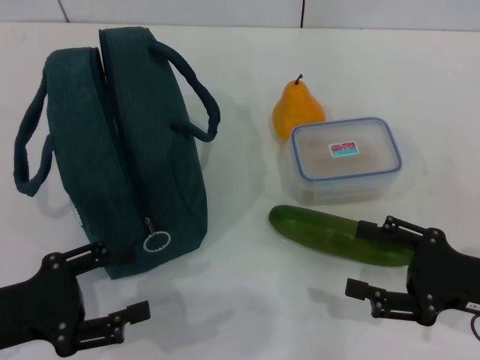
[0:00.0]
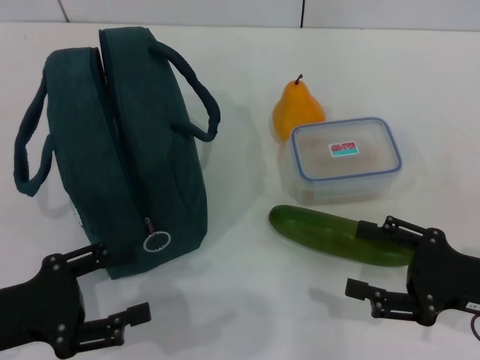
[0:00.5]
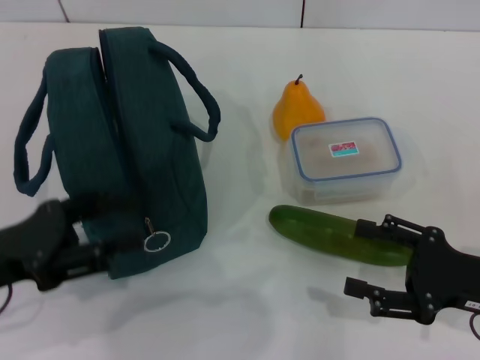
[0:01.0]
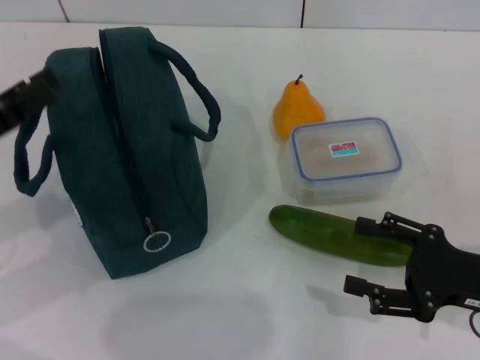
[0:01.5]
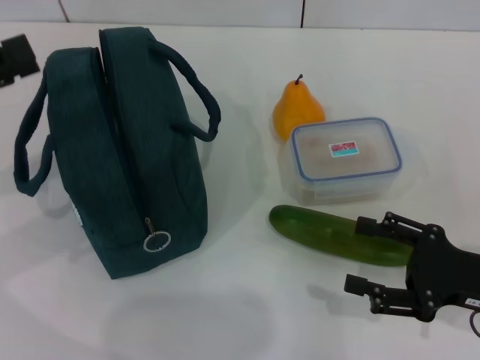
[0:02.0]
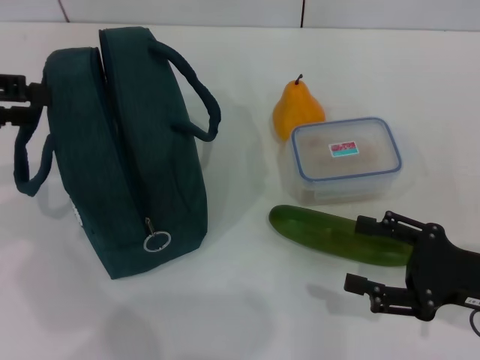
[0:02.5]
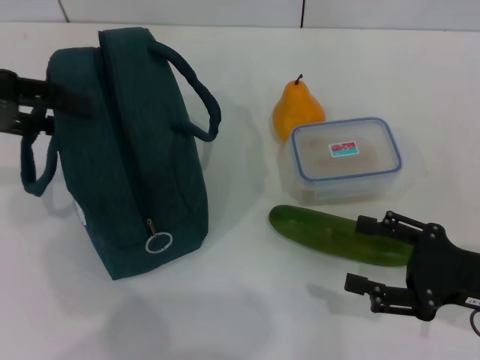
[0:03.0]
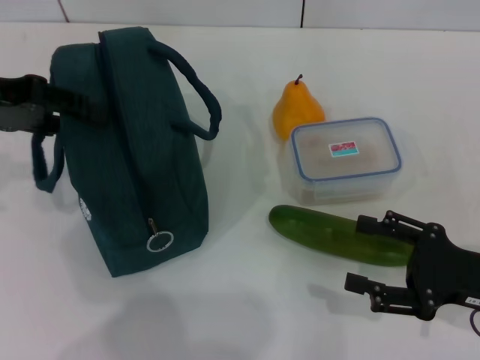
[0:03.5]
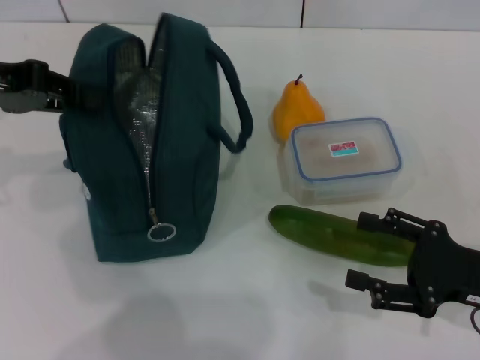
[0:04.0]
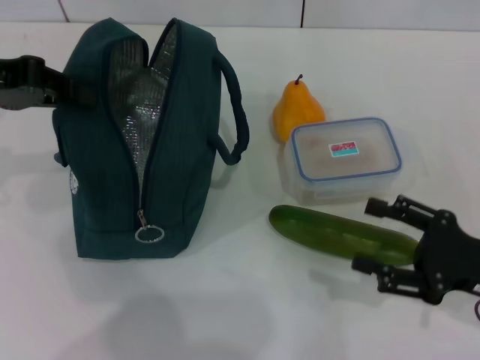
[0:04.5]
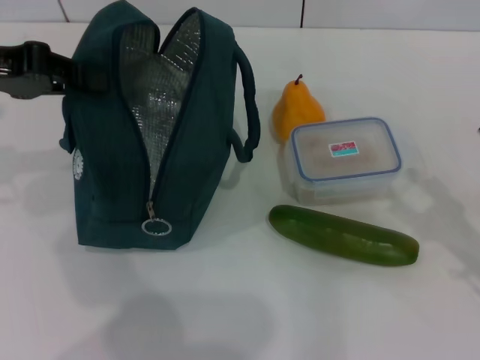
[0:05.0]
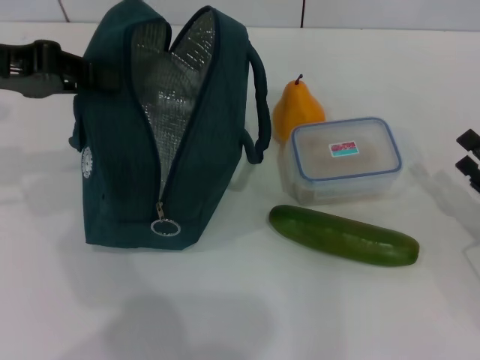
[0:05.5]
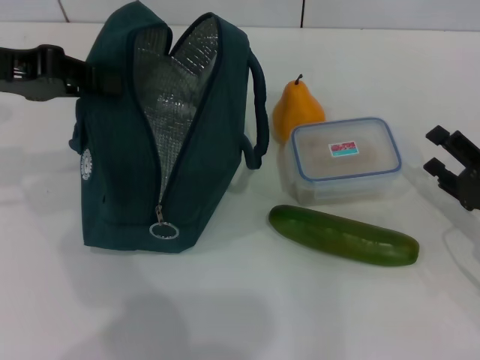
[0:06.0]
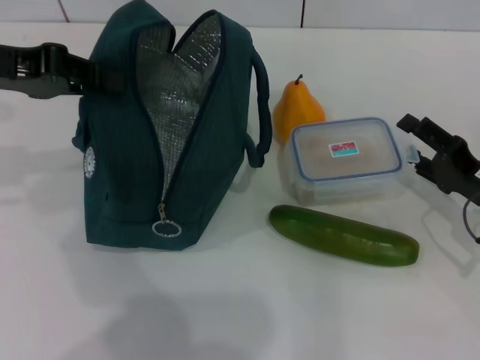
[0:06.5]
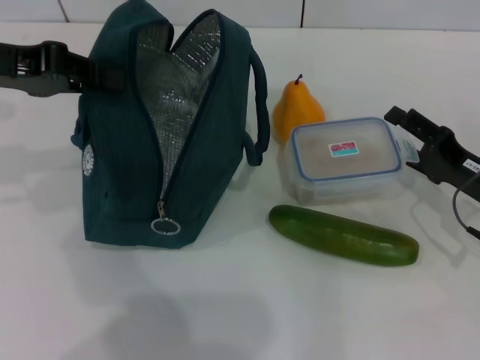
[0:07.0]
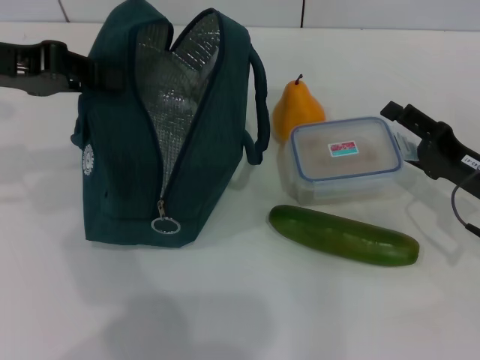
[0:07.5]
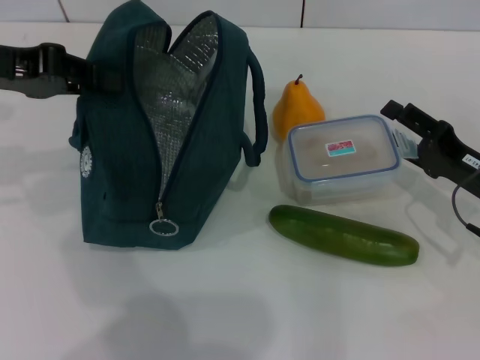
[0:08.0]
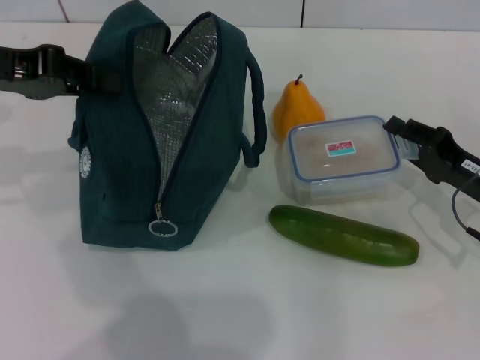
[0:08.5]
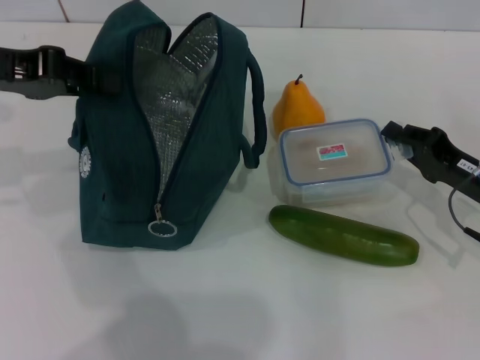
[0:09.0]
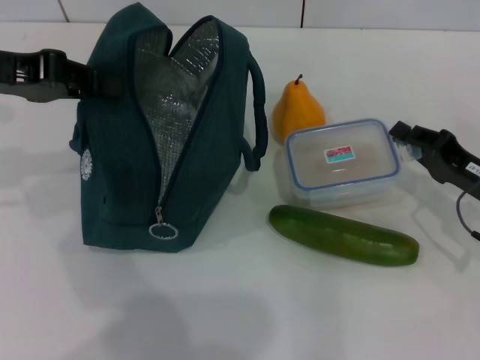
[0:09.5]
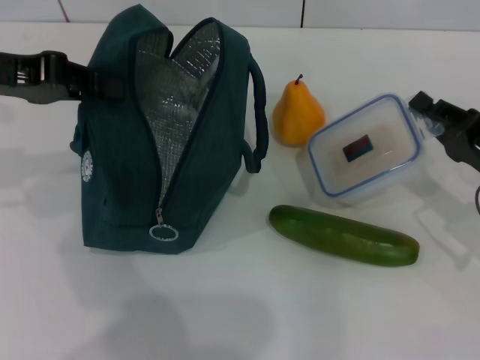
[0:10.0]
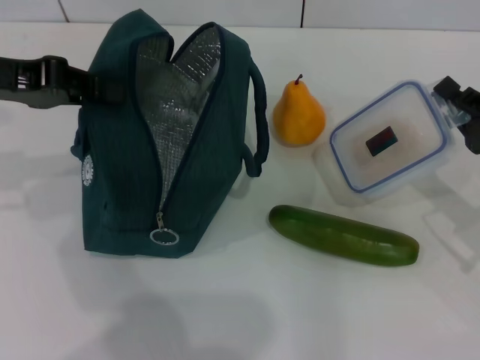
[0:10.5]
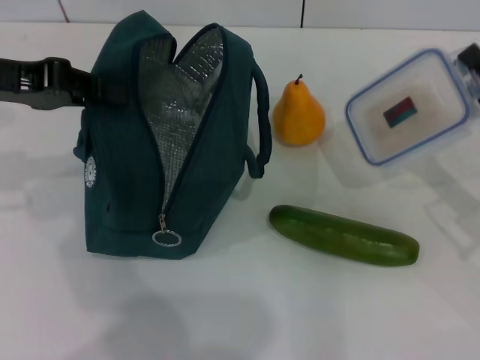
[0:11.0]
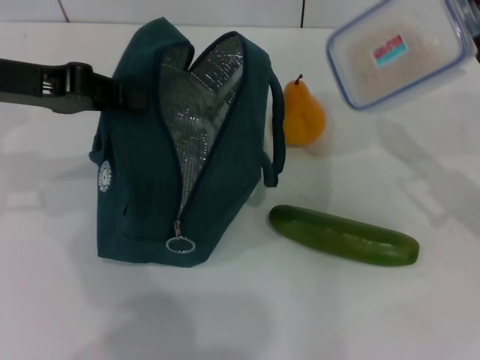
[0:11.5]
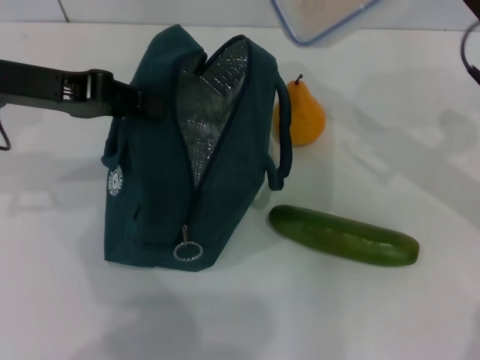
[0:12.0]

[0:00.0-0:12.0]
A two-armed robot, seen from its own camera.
Step, 0:00.0 to 0:04.0: Hold the lunch bag with your left hand.
Step, 0:04.5 to 0:09.5: Pick up the lunch box with your right hand.
0:00.0 to 0:02.0: The left gripper is displaced upward, forward and to the left by approximately 15 cm.
0:02.0 to 0:04.0: The left gripper goes some 10 cm forward and to the right, and closes up.
0:04.0 to 0:06.0: The left gripper closes its fingers. Meanwhile the right gripper changes place by about 5 cm.
0:06.0 to 0:08.0: The right gripper changes place by some 5 cm.
0:08.0 to 0:10.0: The right gripper closes.
0:10.0 to 0:12.0: The right gripper is displaced upward, forward and to the left by approximately 15 cm.

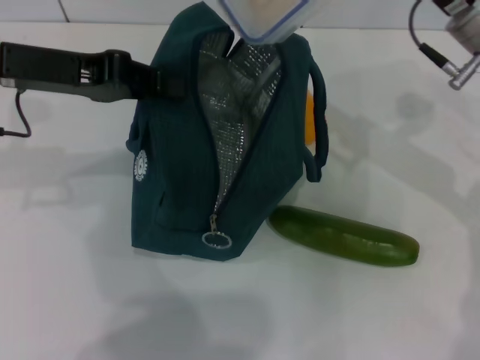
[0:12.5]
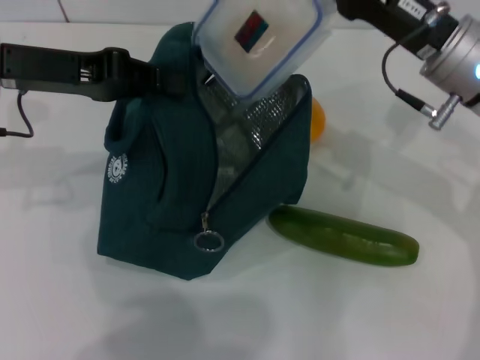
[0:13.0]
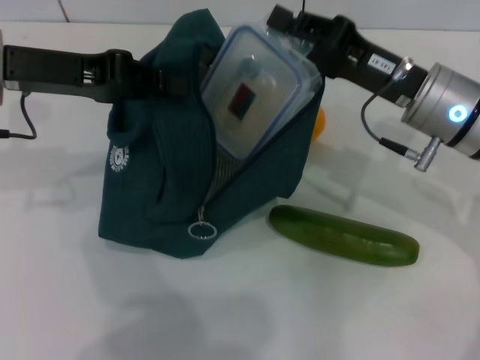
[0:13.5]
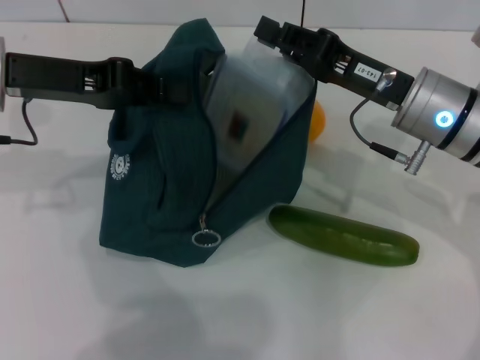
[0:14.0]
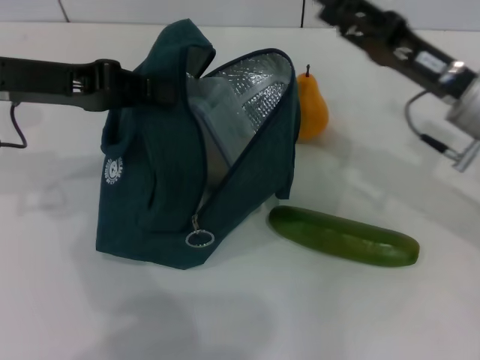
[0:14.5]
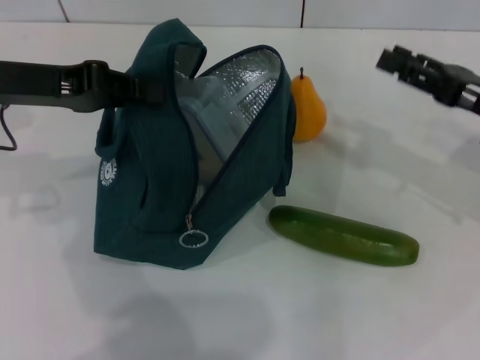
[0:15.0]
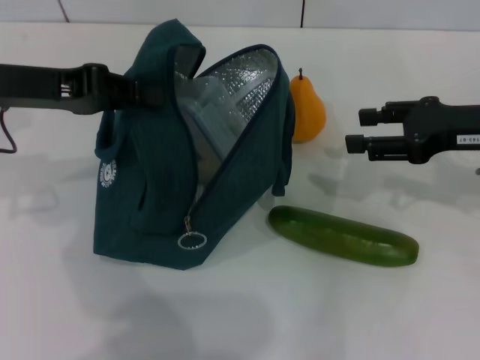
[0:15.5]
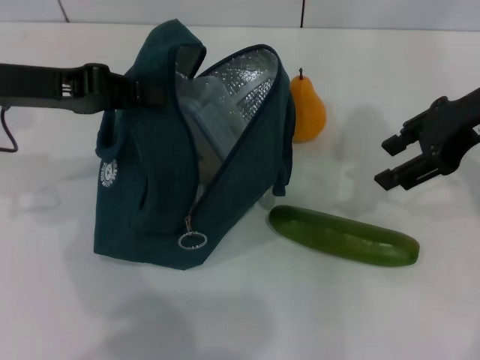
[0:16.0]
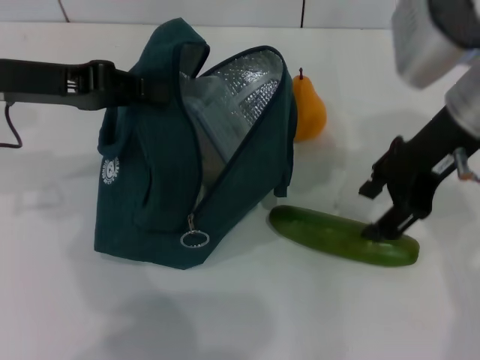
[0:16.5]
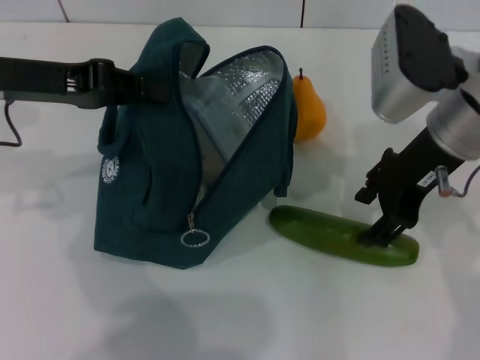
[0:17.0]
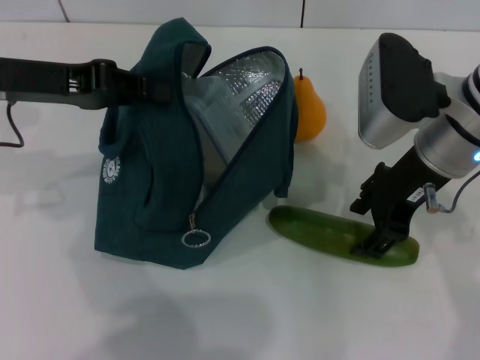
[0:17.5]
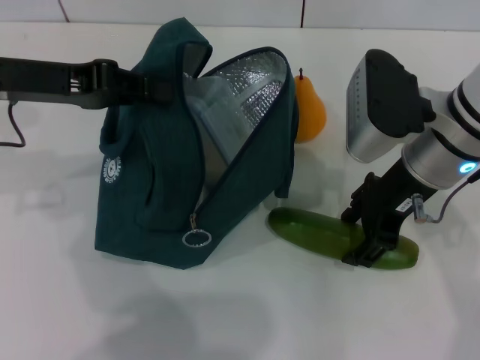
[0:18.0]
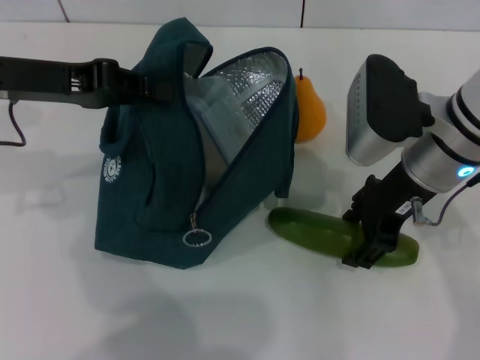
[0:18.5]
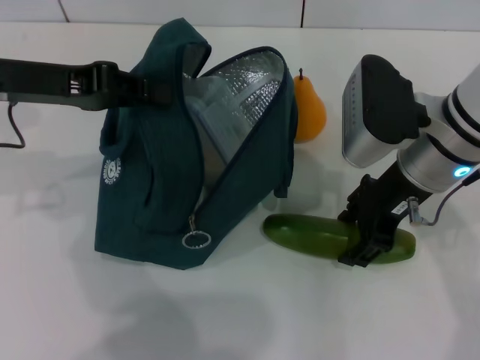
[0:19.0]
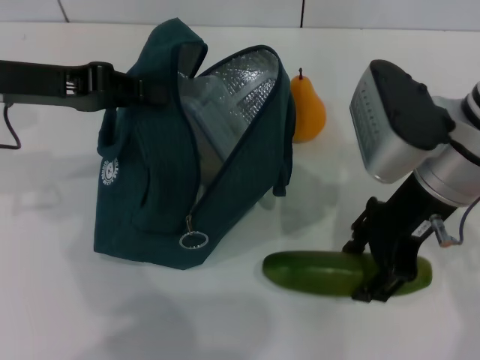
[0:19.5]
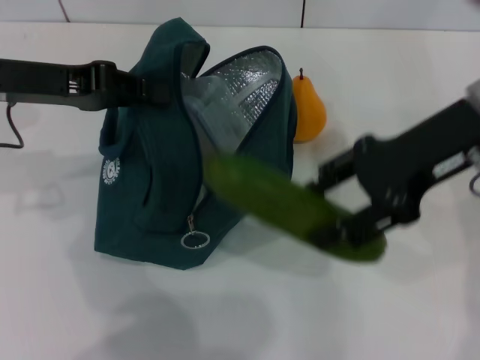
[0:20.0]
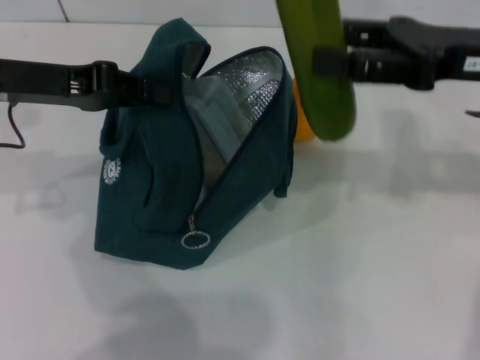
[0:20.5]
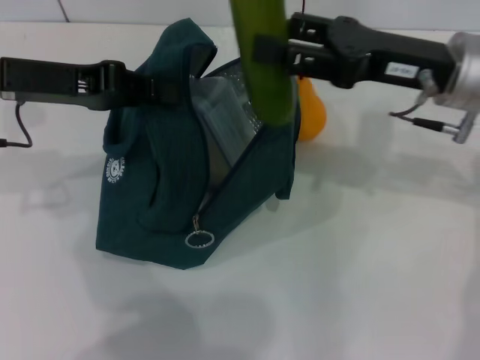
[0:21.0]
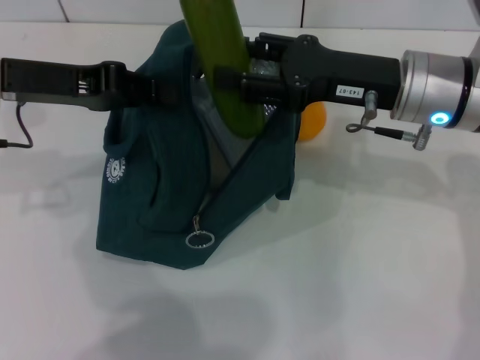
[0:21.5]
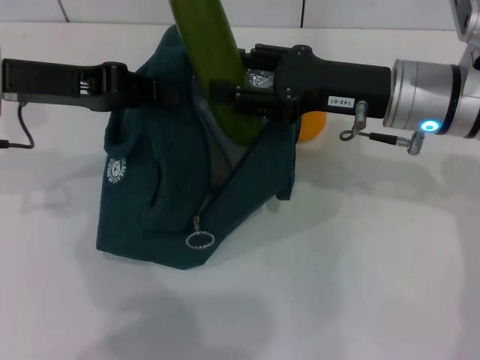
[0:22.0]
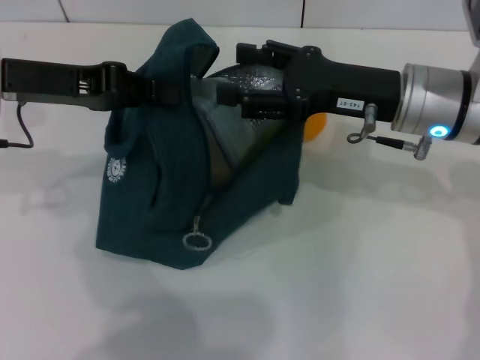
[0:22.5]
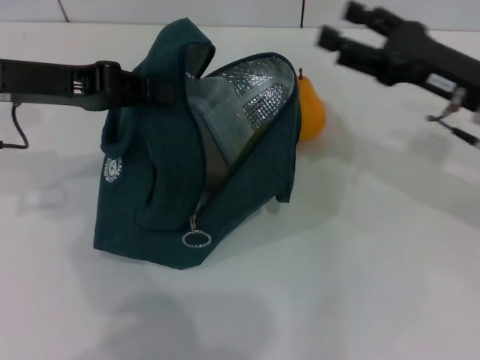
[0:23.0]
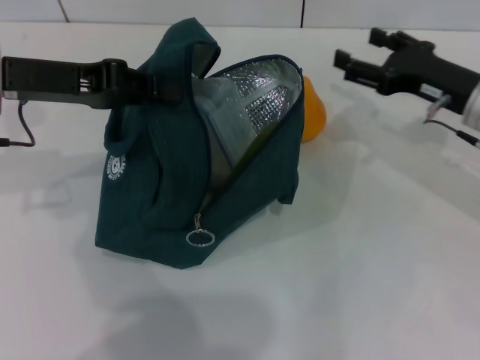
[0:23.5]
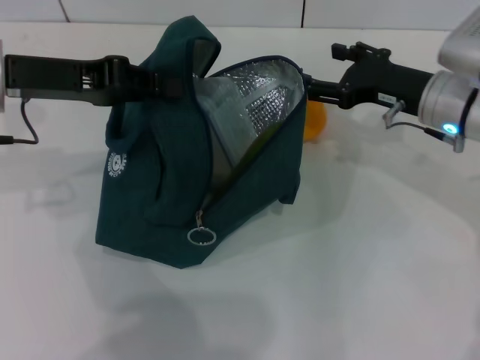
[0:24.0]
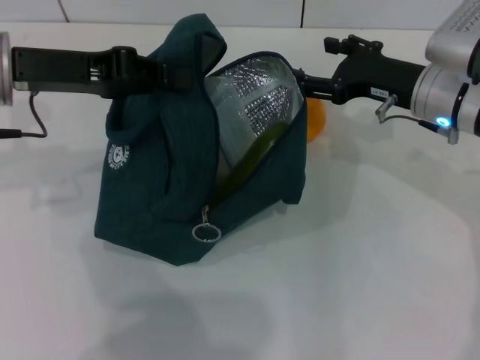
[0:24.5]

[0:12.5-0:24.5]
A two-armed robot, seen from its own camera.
Step, 0:14.5 to 0:19.0: Pick up the cucumber with your right hand.
Step, 0:19.5 to 0:22.0: Put the cucumber into the lunch bag with your right hand.
0:12.5 to 0:14.5: The right gripper shifts about 5 cm downward.
0:14.5 to 0:16.5: The right gripper heads upward, covering roughly 10 cm.
0:16.5 to 0:18.5: The right gripper shifts about 5 cm downward.
0:18.5 to 0:20.5: The right gripper goes some 10 cm to the right and upward.
0:20.5 to 0:22.5: The right gripper shifts some 10 cm to the left and downward.
0:22.5 to 0:24.5: The right gripper moves about 5 cm.

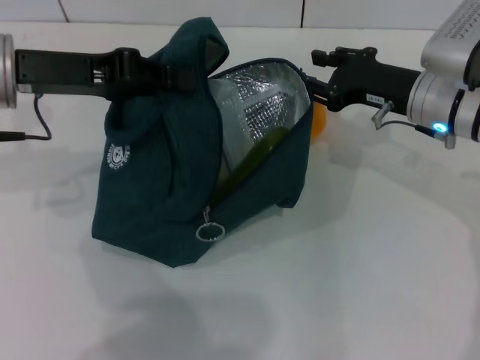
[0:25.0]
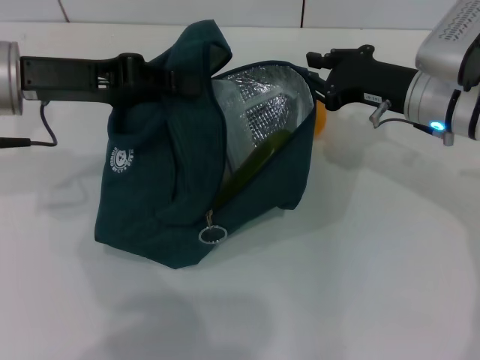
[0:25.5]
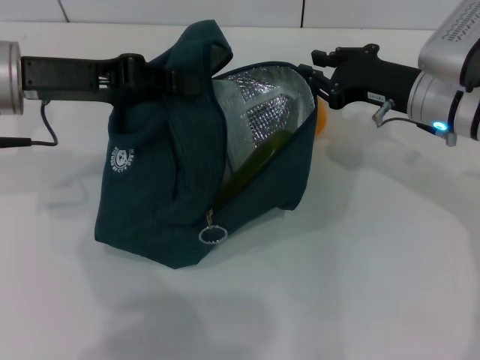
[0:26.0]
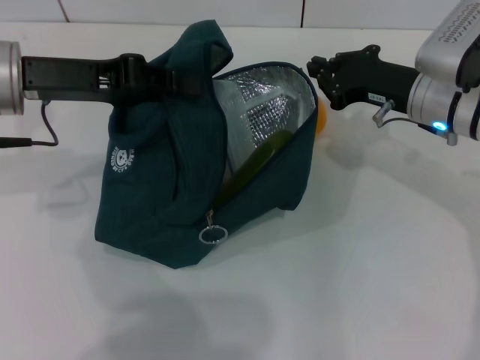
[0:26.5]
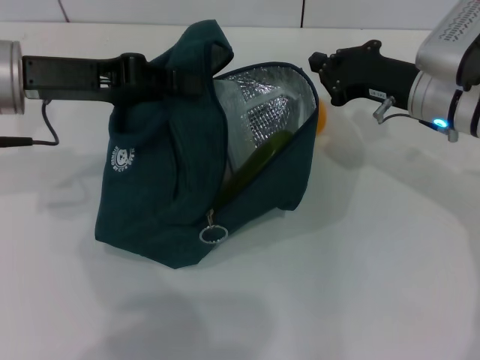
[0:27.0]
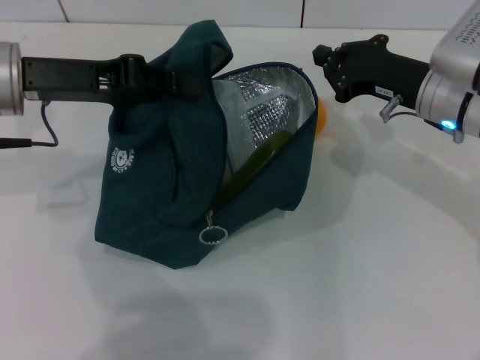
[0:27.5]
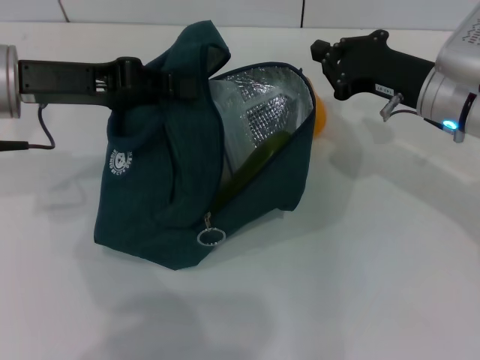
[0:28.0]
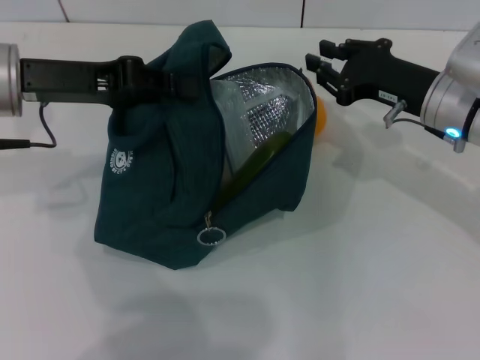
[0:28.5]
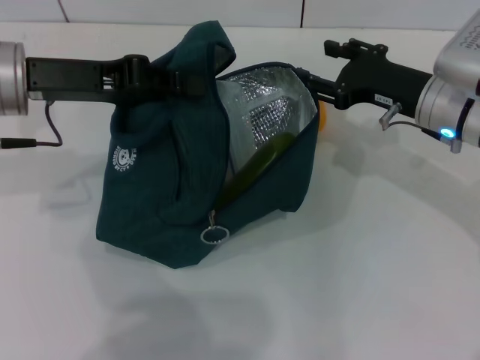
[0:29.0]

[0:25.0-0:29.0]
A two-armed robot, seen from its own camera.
0:25.0 to 0:27.0: The right gripper closes up.
0:27.0 to 0:29.0: The right gripper opens up.
